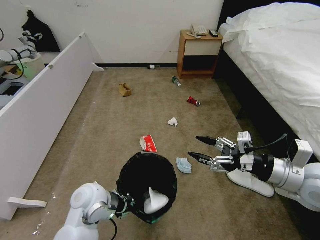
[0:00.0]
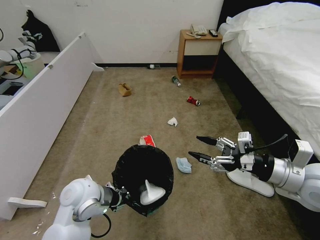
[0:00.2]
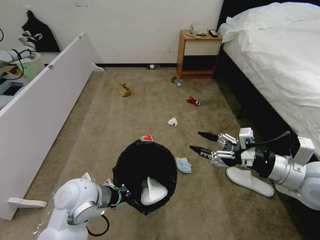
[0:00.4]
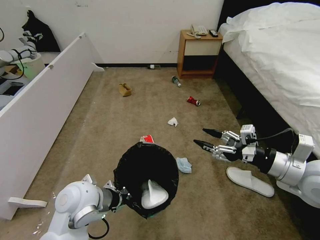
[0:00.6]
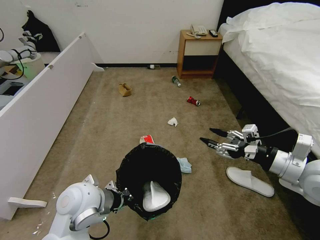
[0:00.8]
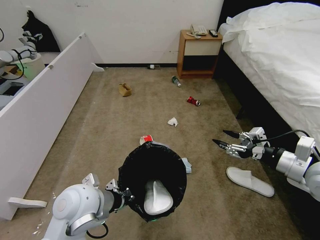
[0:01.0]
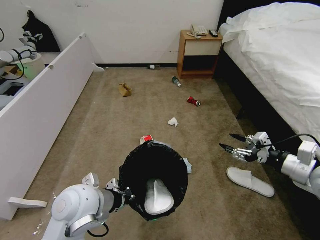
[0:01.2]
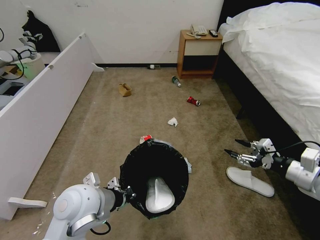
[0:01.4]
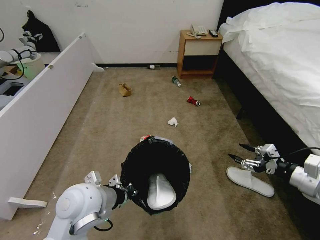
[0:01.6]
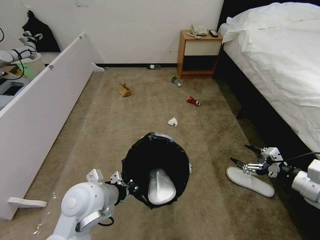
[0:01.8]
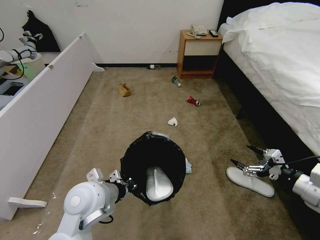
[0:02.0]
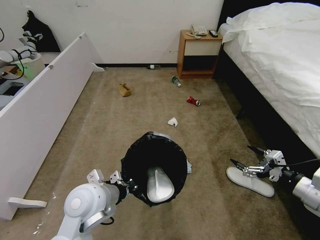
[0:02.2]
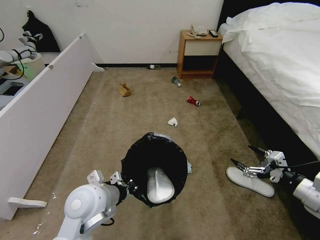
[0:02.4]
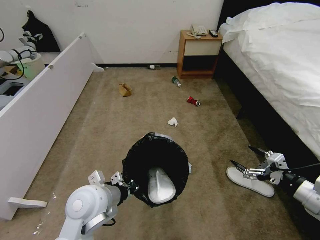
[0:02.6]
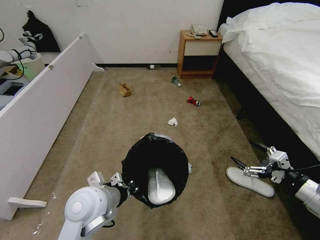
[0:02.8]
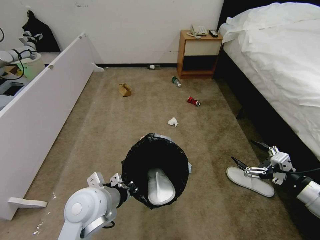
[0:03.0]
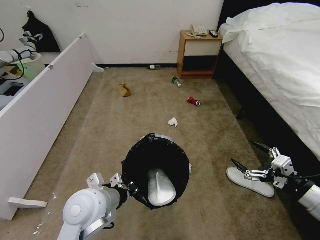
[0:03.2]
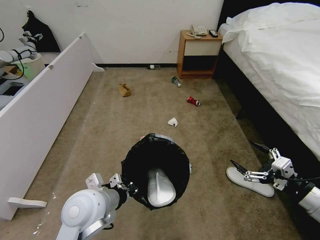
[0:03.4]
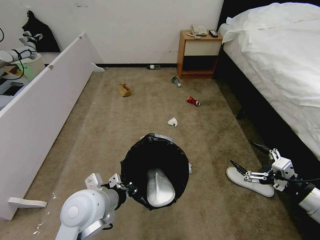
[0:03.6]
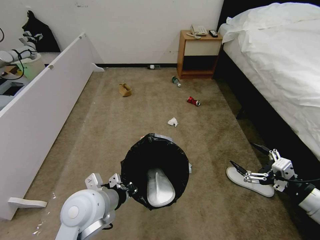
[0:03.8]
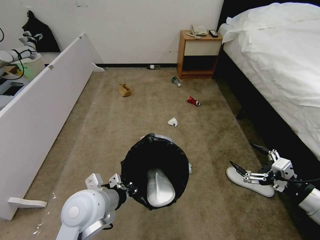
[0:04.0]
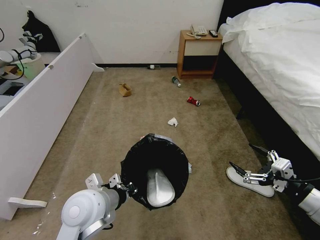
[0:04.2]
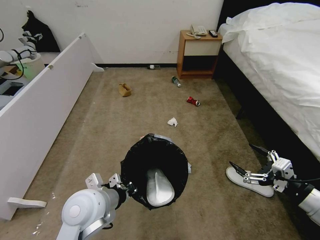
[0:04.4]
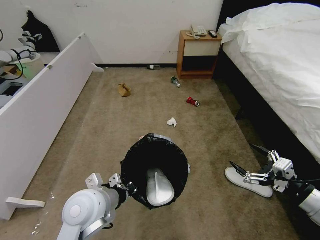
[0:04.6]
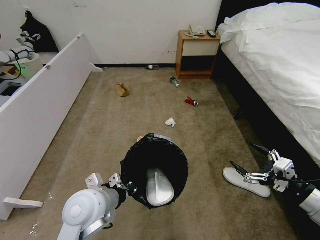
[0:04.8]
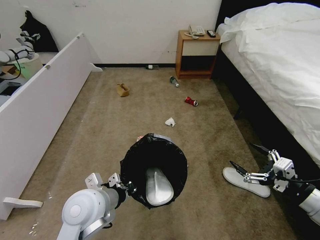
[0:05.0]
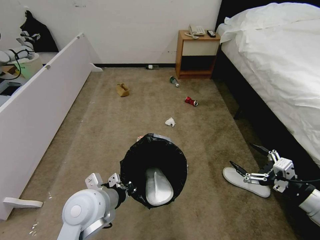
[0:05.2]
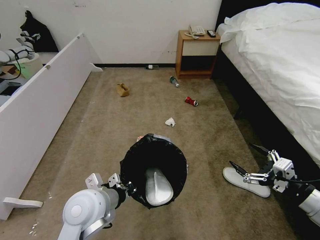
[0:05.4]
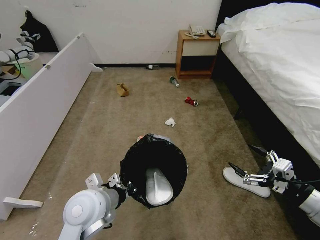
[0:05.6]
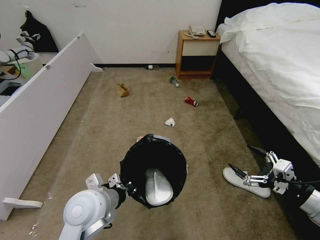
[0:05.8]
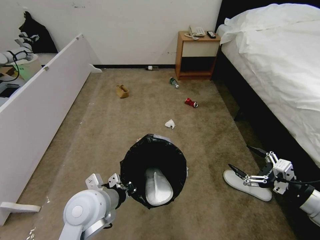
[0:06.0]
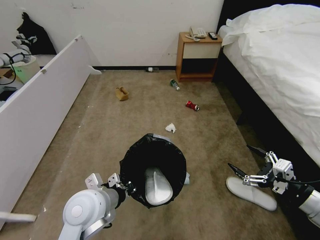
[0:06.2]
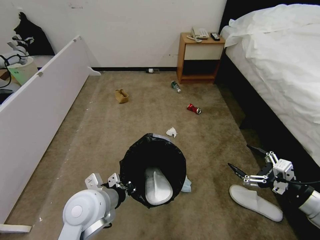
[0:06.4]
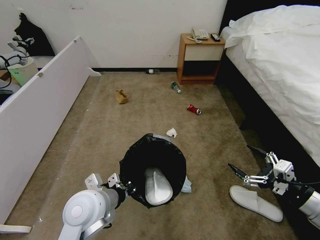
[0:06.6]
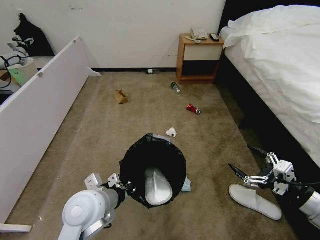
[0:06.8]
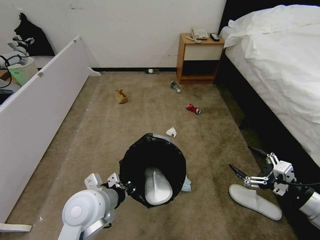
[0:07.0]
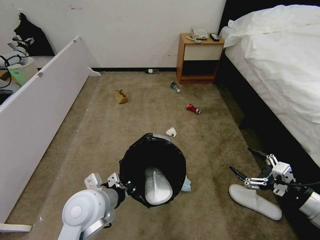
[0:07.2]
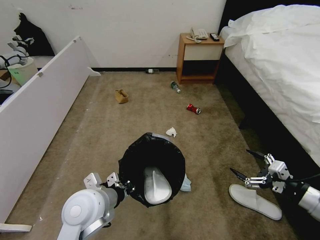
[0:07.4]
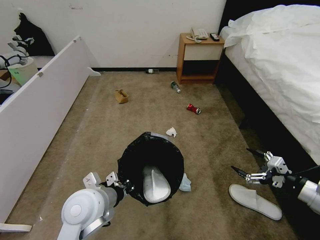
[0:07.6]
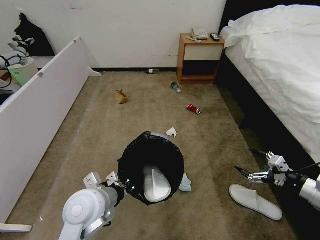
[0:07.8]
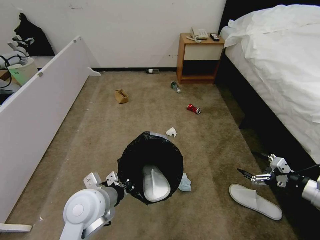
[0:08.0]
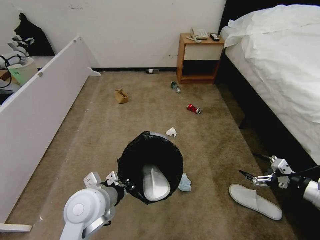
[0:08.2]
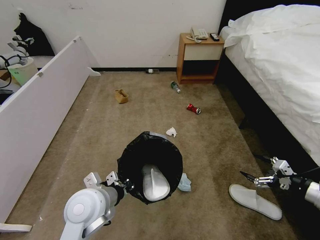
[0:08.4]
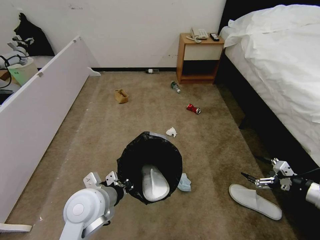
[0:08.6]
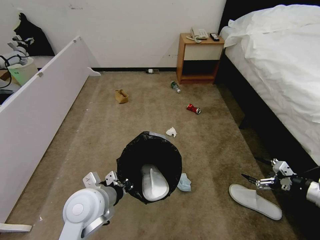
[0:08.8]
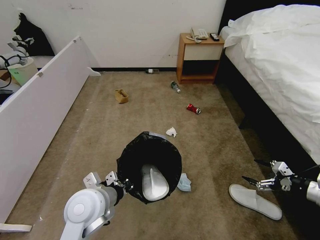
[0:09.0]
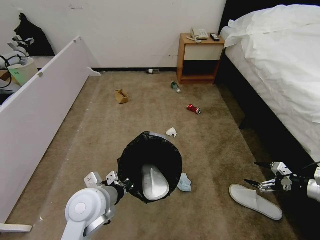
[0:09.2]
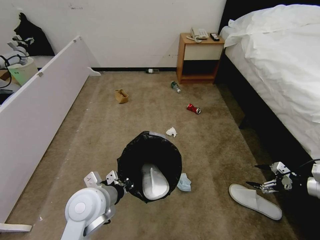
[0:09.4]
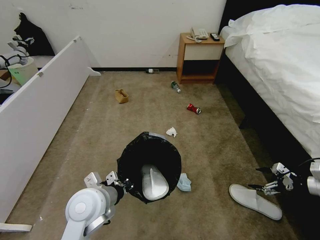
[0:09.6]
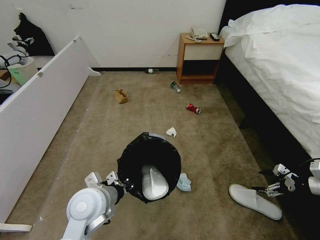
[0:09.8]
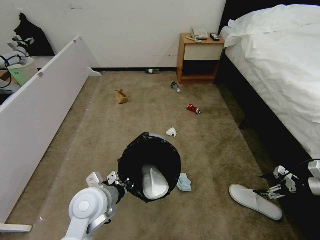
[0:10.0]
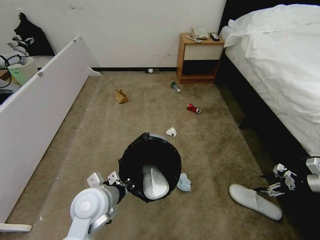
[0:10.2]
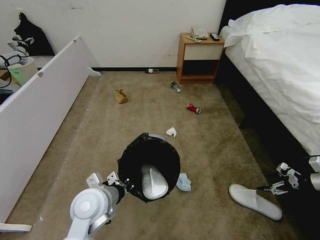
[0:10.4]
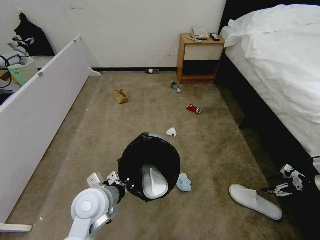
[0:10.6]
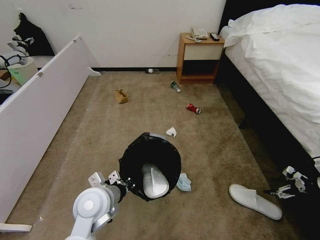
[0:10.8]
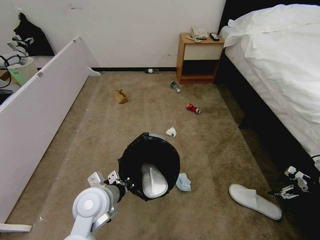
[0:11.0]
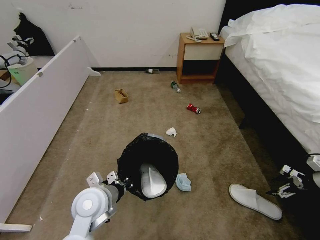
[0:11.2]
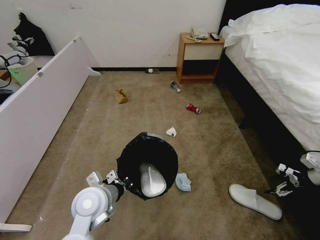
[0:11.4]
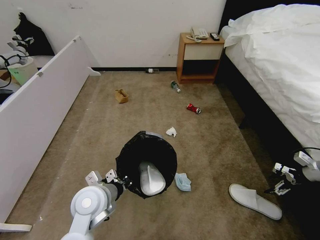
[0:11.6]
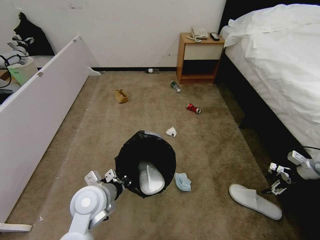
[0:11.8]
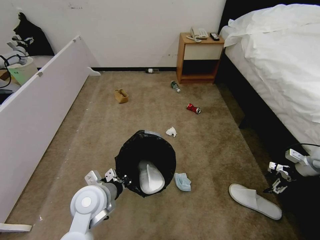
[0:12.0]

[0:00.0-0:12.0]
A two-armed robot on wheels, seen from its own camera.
Task of the whole recording: Pick up the trash bin and place the garbage on the floor into it.
0:00.0 to 0:01.6: The right gripper shifts roughly 10 cm to the right and downward. The left gripper goes approximately 5 cm upward.
0:01.6 to 0:03.0: The right gripper travels backward by approximately 5 cm.
0:03.0 to 0:04.4: There are only small adjustments of the grippers.
0:04.4 to 0:06.0: Neither gripper changes place.
0:06.0 to 0:07.6: The right gripper moves roughly 5 cm.
0:07.6 to 0:09.0: The right gripper moves to the right, approximately 5 cm.
0:09.0 to 0:10.4: The right gripper heads to the right and forward, covering about 10 cm.
0:10.4 to 0:12.0: The right gripper travels forward by about 10 cm.

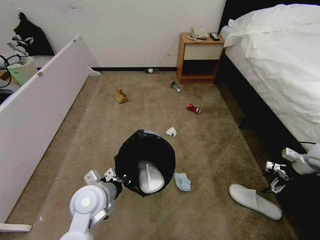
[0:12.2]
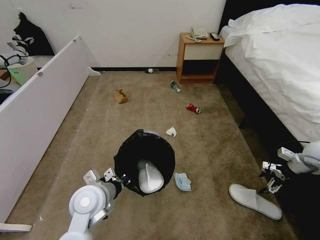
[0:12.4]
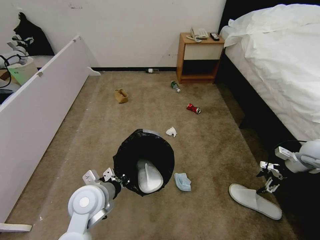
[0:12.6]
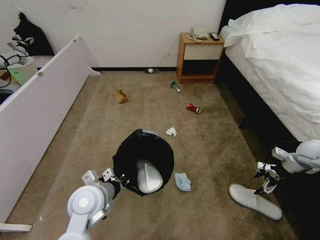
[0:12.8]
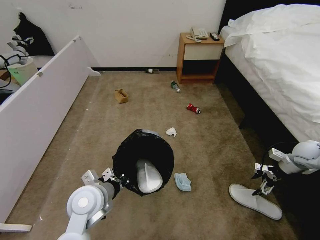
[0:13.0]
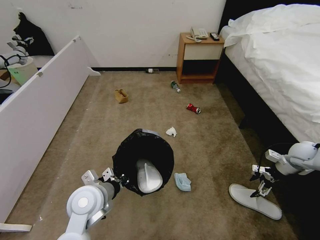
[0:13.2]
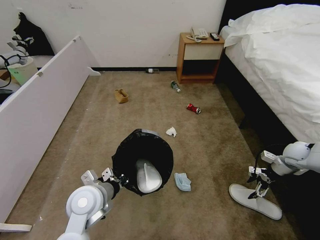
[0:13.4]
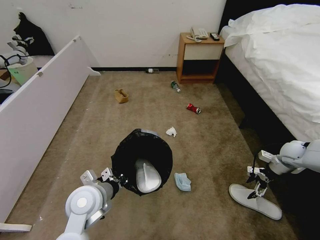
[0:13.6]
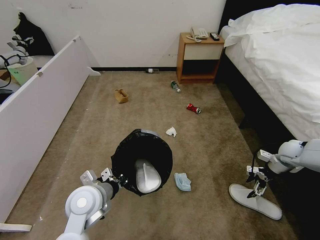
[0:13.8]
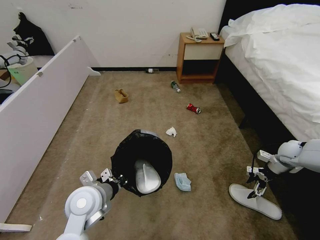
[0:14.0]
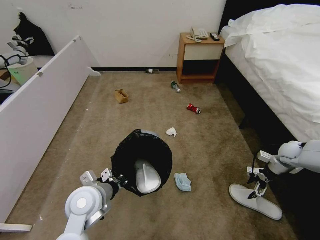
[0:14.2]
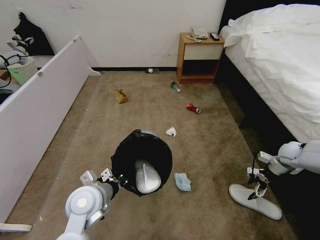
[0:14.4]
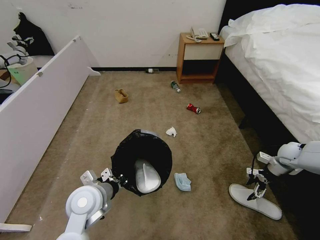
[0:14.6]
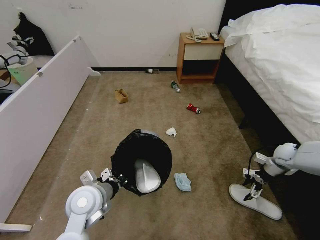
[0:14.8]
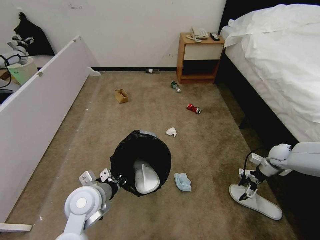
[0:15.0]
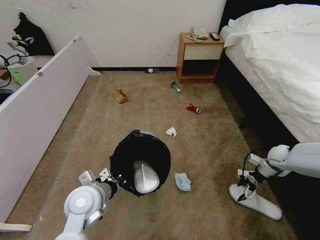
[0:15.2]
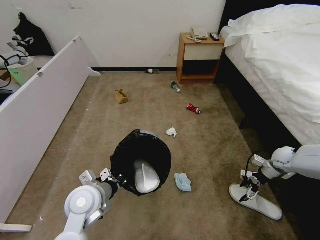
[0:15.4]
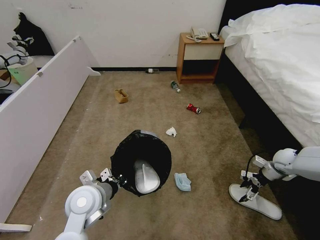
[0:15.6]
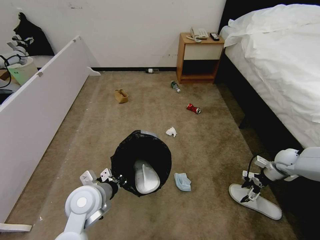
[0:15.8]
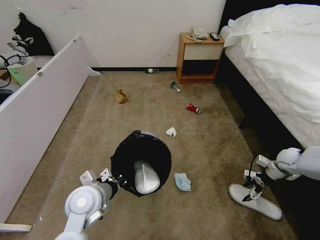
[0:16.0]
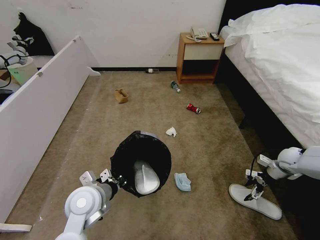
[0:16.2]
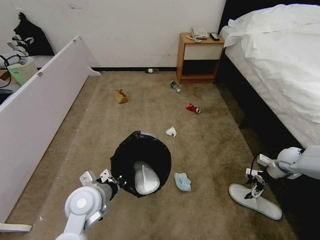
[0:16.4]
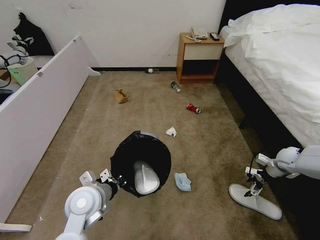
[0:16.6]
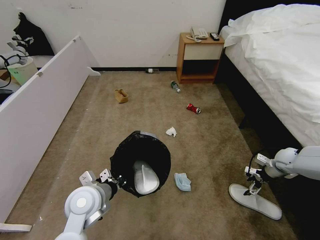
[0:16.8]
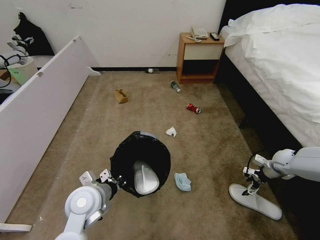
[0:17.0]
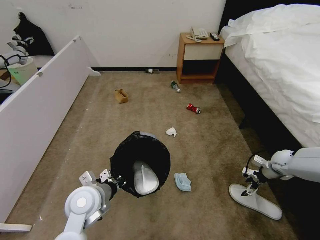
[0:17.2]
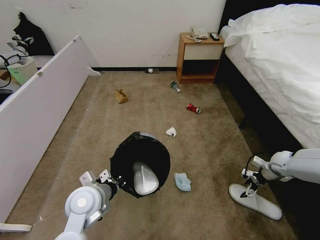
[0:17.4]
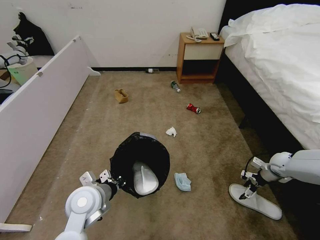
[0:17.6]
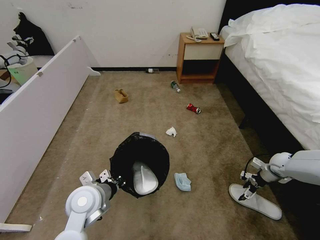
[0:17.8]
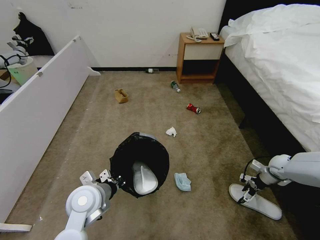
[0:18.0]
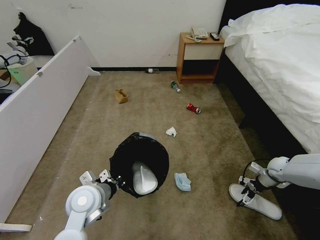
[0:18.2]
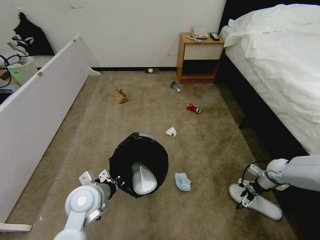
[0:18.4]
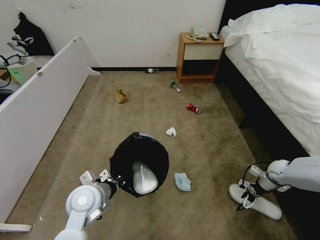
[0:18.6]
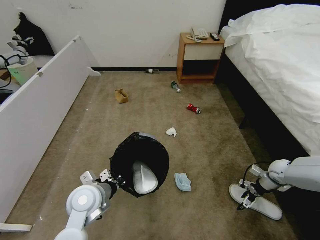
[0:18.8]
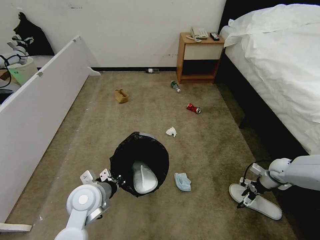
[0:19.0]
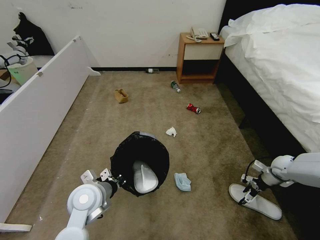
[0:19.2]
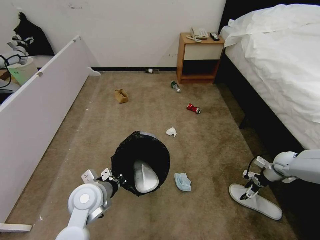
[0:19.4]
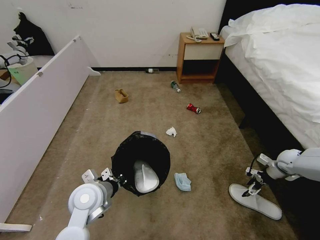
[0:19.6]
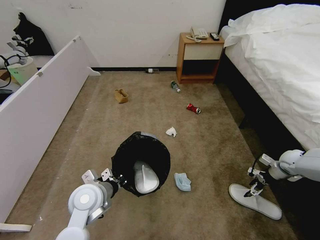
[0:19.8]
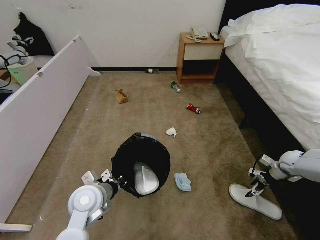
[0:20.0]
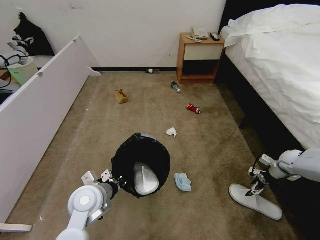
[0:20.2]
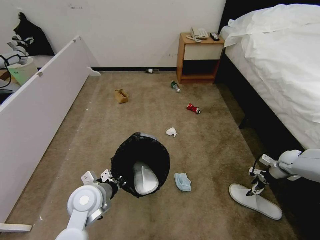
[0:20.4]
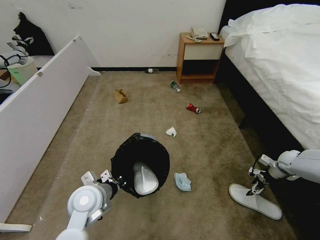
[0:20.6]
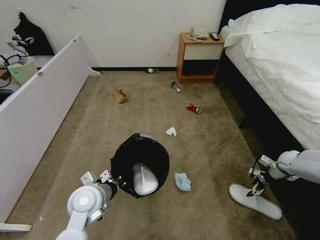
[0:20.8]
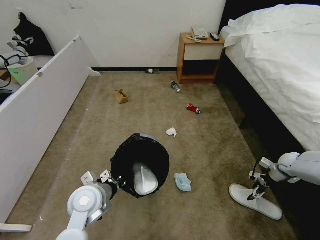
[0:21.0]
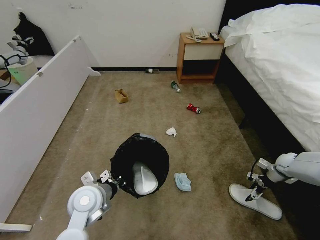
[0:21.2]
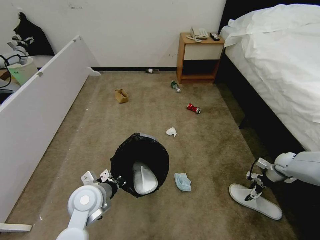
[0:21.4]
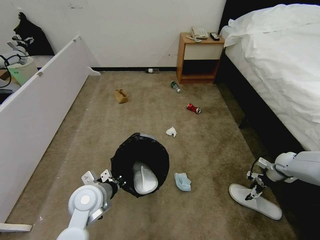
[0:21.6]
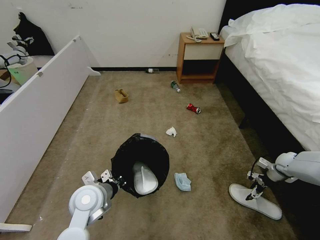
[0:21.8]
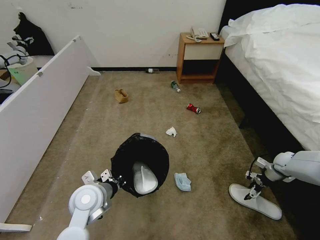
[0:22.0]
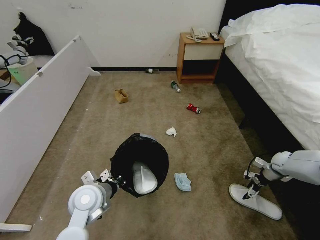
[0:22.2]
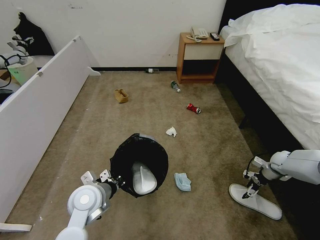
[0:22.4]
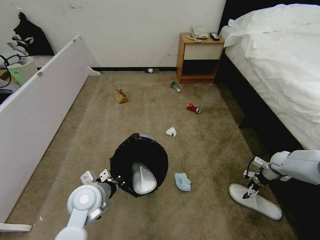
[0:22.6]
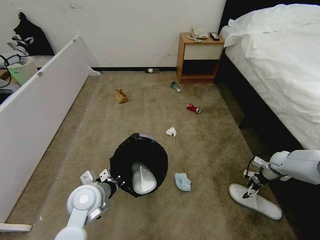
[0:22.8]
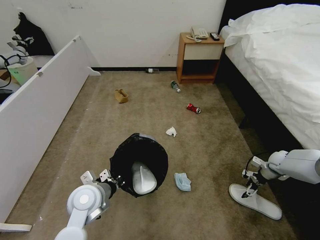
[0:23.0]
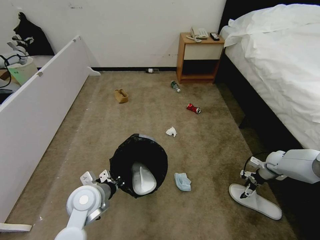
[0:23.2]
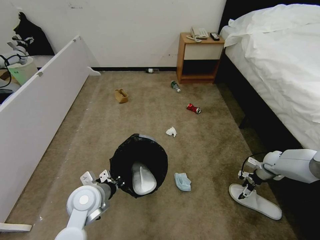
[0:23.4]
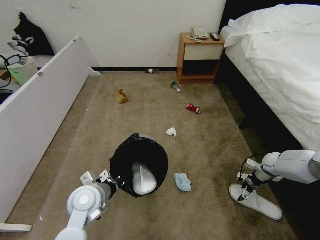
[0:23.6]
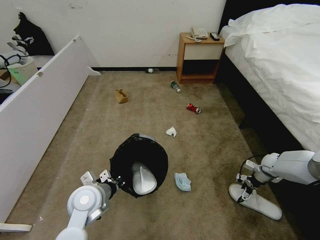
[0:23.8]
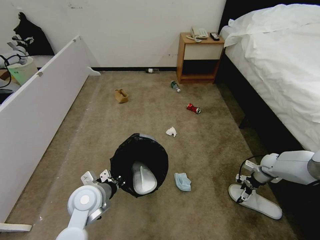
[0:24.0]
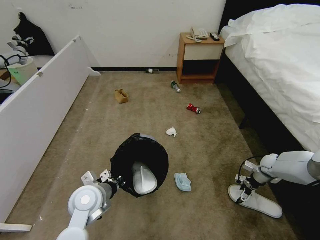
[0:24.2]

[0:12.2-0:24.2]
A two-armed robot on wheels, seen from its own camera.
Task of the whole recording: Pick up the trash bin and place the garbage on the floor into it.
0:12.2 to 0:13.8: The right gripper goes approximately 5 cm to the left.
0:13.8 to 0:16.6: The grippers move only a little.
0:16.6 to 0:18.2: The right gripper goes about 5 cm downward.
0:18.2 to 0:19.8: The right gripper changes place by some 5 cm.
0:19.8 to 0:22.6: There are only small adjustments of the grippers.
0:22.6 to 0:24.2: The grippers stay close to where they were, moving slightly.
